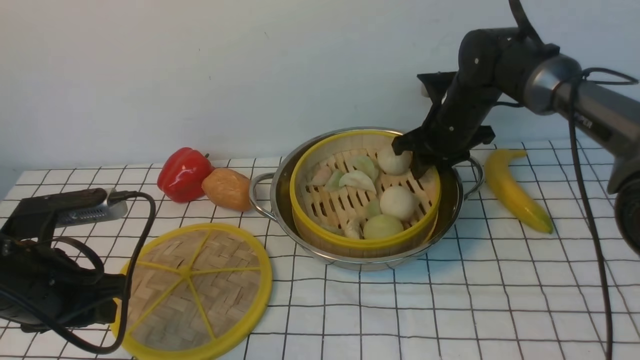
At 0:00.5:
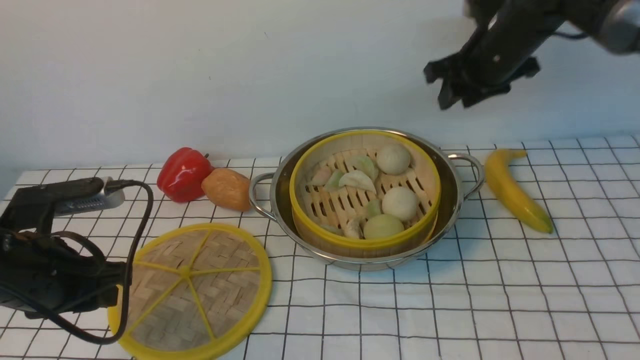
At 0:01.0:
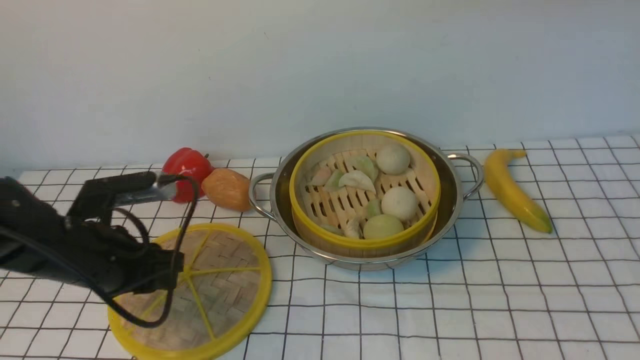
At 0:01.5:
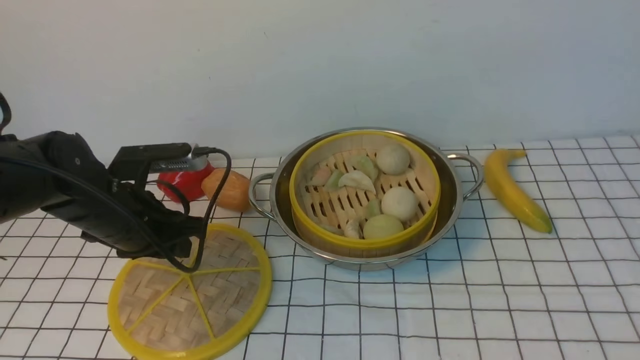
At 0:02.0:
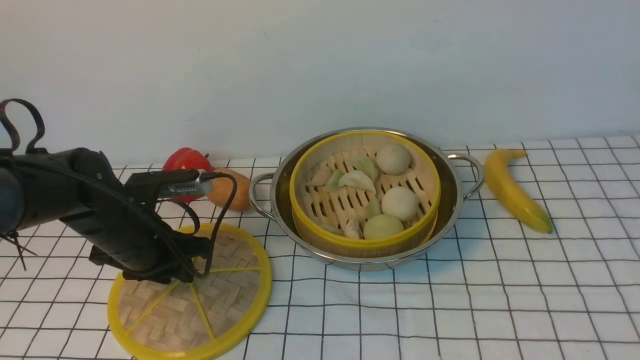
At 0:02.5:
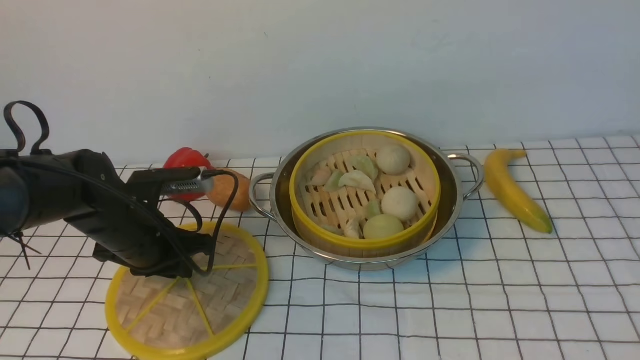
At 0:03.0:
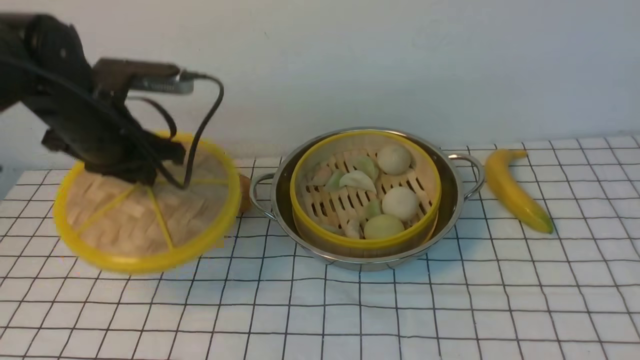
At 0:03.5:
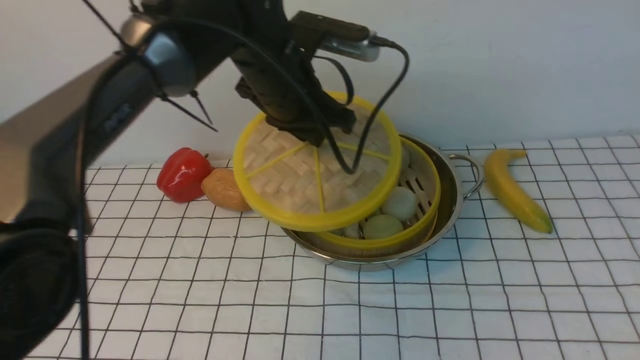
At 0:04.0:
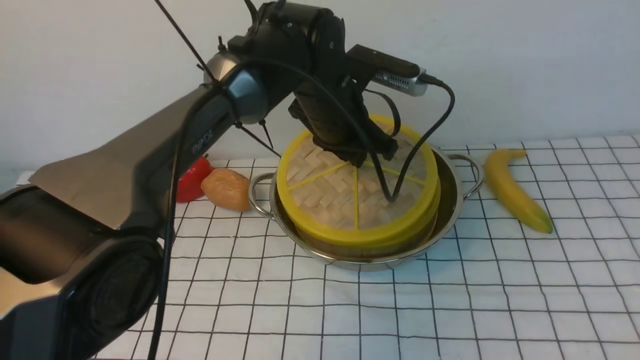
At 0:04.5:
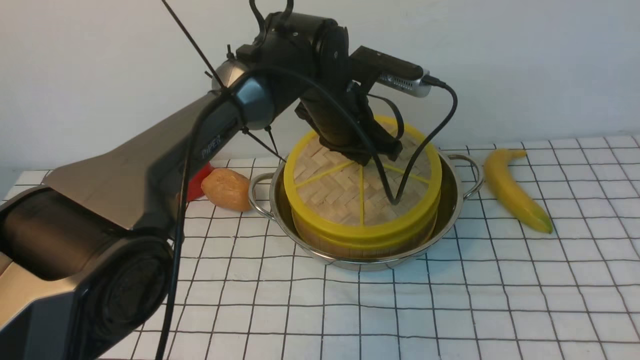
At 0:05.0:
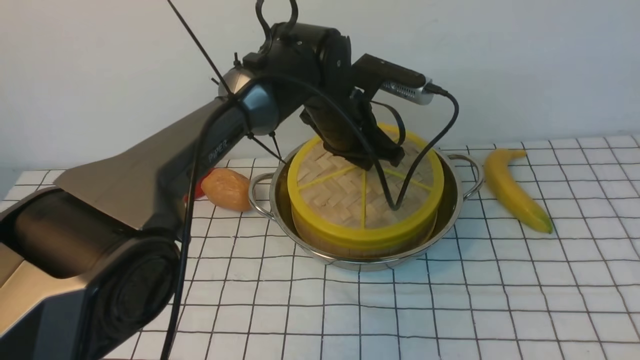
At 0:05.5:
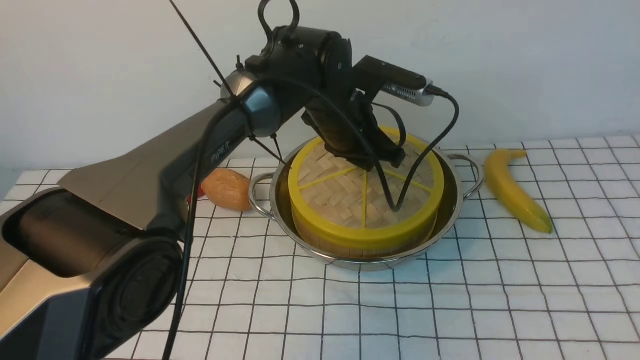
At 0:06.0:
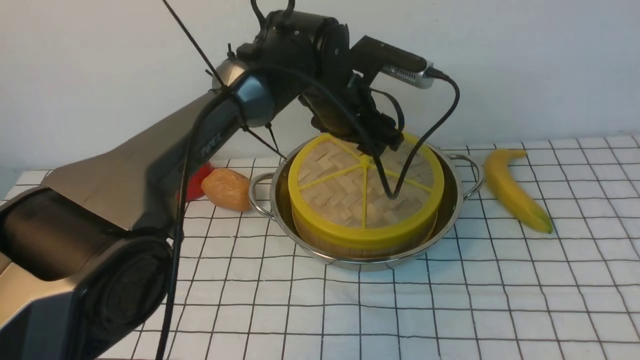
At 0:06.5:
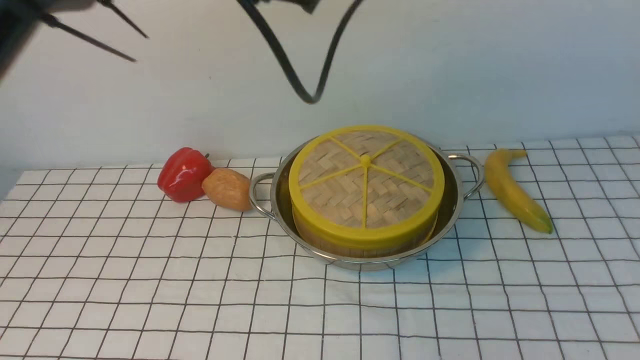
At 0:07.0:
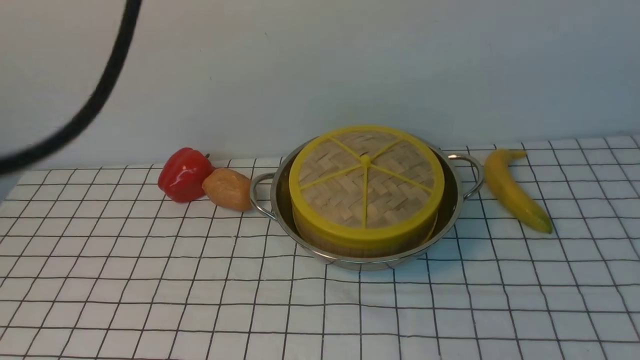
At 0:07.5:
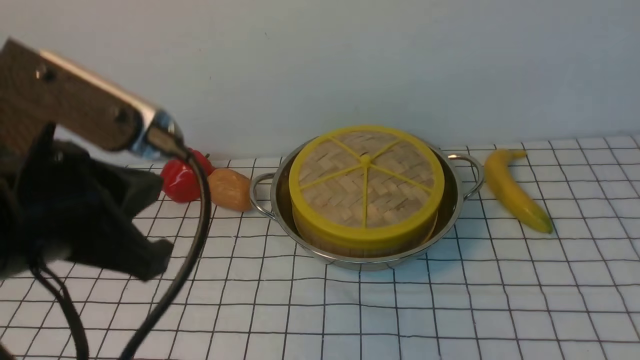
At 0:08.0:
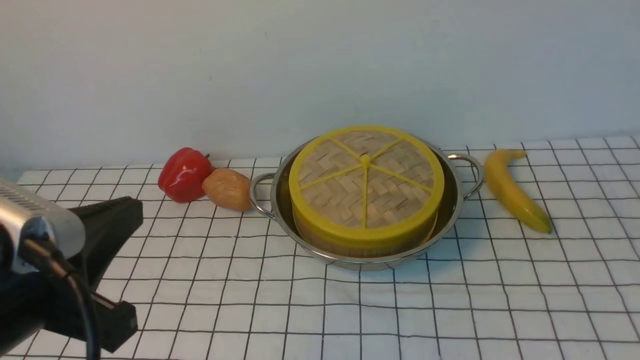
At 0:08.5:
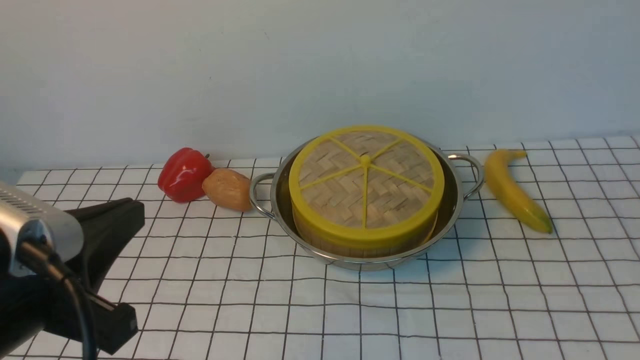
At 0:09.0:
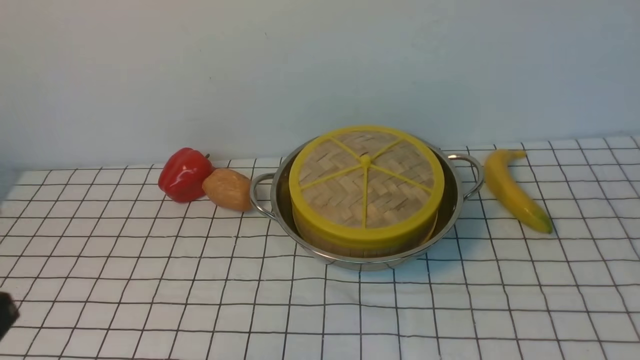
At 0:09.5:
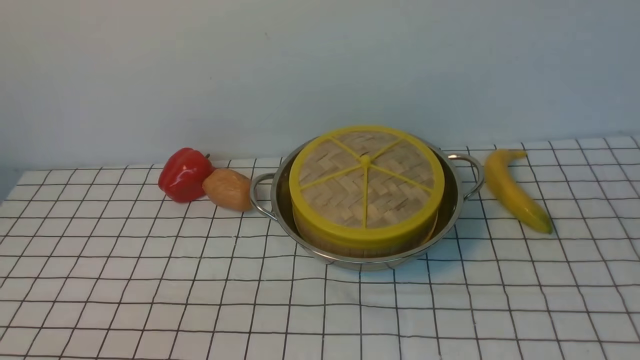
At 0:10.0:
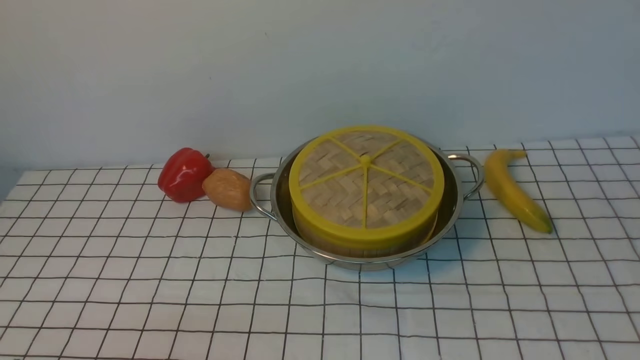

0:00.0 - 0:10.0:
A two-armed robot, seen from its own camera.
Task of the whole recording: place the steamer in the pot on the white tablecloth, and put the lid on the steamer.
Step, 0:00.5 - 0:02.5: use the left arm to lift the lid of the steamer.
Step, 0:03.0 - 0:06.0: use the left arm to place the steamer lid on the steamer.
0:00.0 - 0:02.0: The left gripper goes roughly 10 cm forward and downward. The right gripper moves backward, upward and to the right, about 40 cm, and closes its fingers.
0:02.0 - 0:04.0: The left gripper is displaced to the right, forward and upward by about 25 cm, and closes up.
0:04.0 - 0:06.0: The left gripper opens its fingers.
0:06.0 - 0:08.0: The right gripper is displaced downward by approximately 10 cm; the left gripper goes roughly 35 cm backward and to the left, and closes.
0:08.0 - 0:10.0: The left gripper goes about 20 cm downward, to the left and backward.

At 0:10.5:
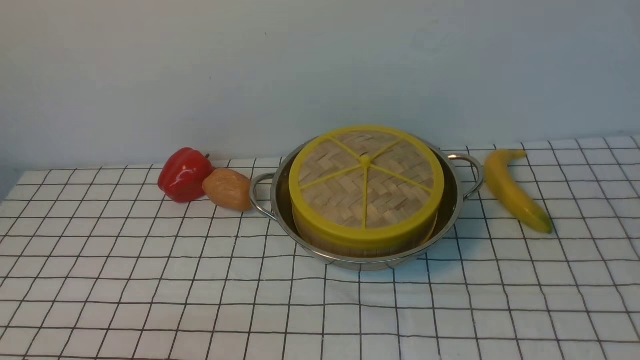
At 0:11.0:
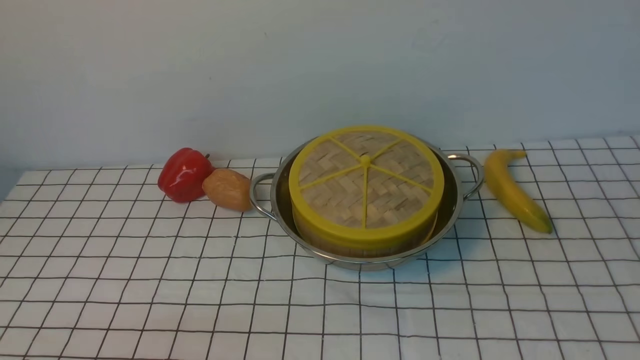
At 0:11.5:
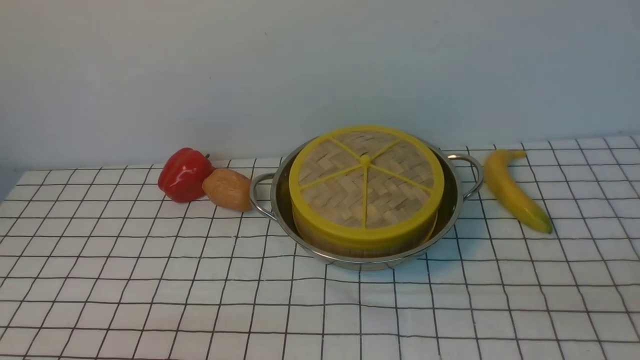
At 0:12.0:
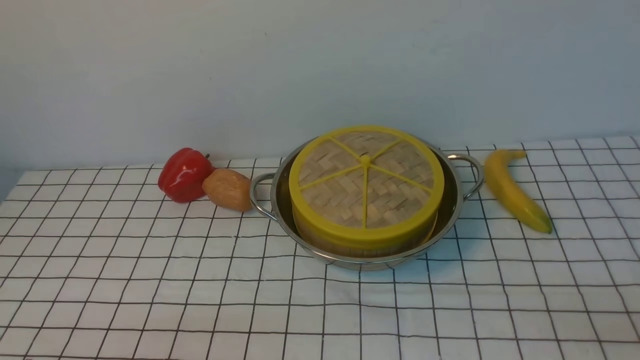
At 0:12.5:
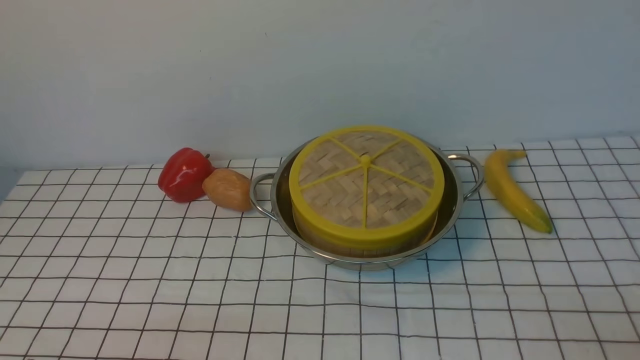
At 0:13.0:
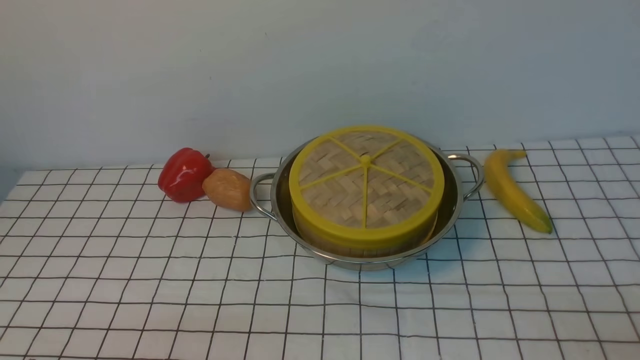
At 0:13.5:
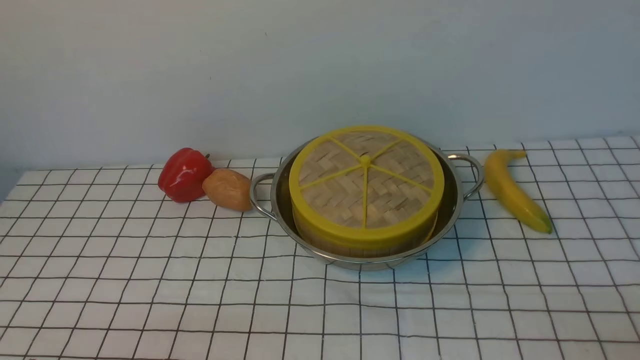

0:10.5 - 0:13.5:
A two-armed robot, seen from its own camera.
Task of the whole recording: place the steamer in the pot on the white tablecloth, and put the lid on the steamer.
0:12.0 - 0:13.5: Neither gripper changes place.
